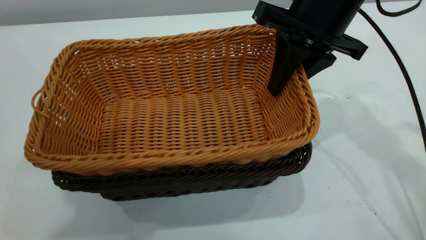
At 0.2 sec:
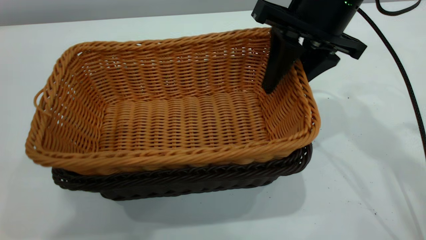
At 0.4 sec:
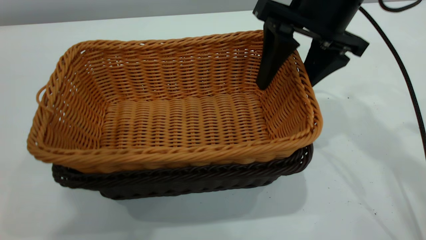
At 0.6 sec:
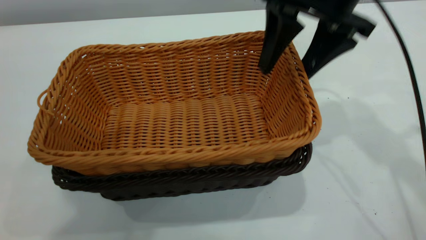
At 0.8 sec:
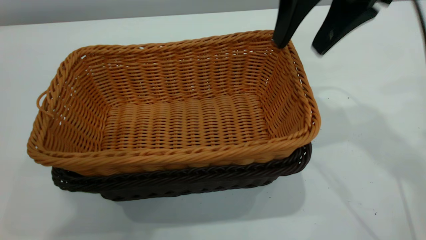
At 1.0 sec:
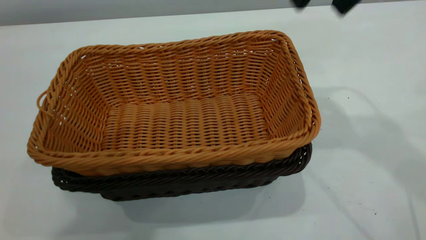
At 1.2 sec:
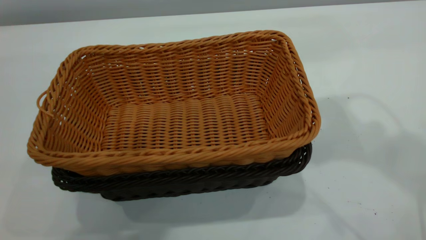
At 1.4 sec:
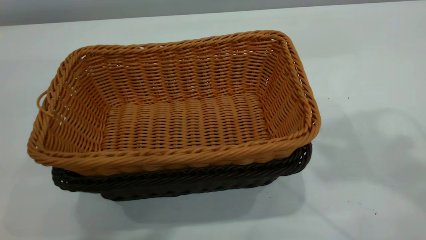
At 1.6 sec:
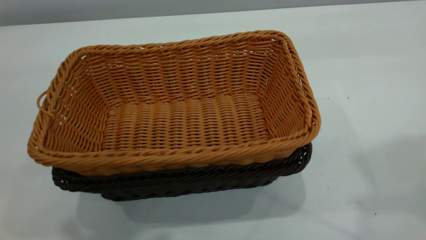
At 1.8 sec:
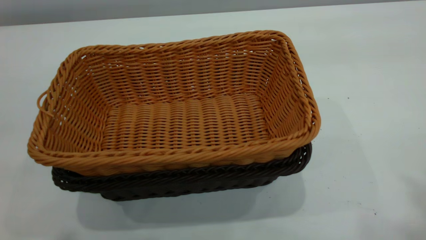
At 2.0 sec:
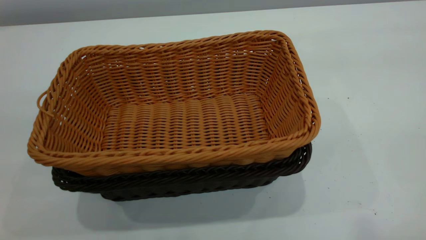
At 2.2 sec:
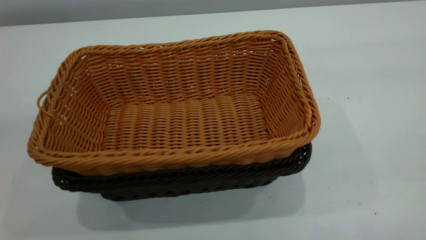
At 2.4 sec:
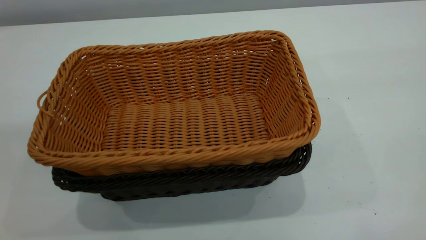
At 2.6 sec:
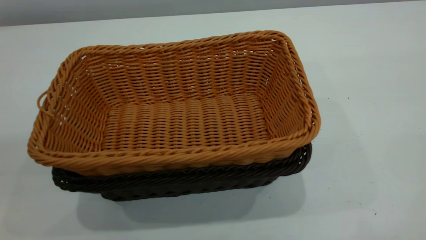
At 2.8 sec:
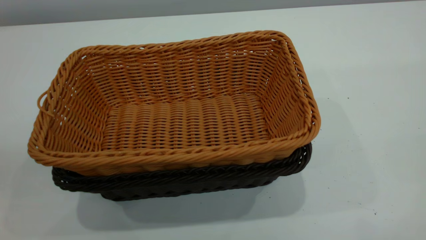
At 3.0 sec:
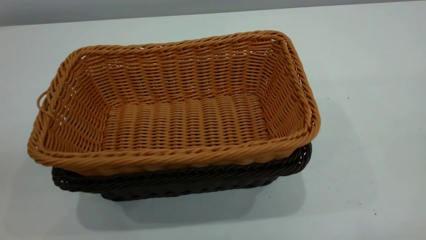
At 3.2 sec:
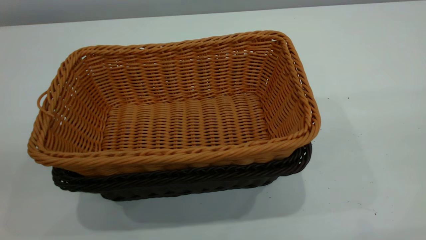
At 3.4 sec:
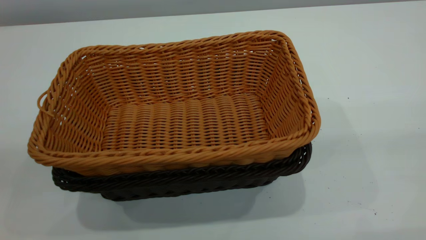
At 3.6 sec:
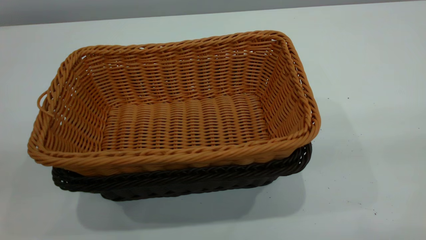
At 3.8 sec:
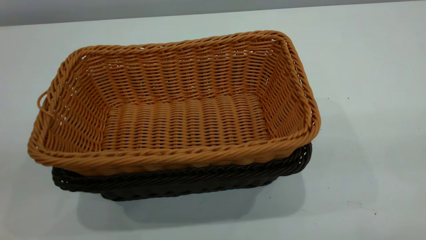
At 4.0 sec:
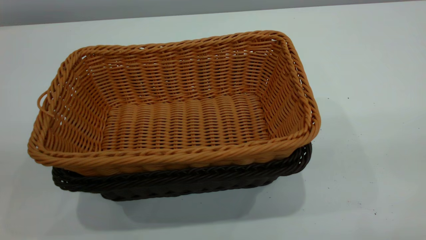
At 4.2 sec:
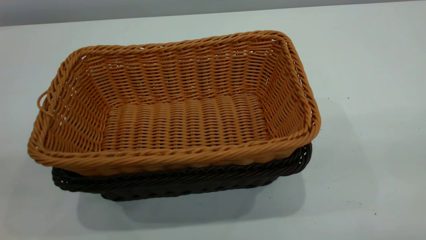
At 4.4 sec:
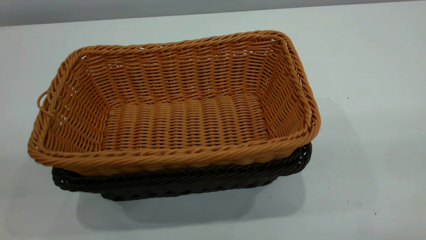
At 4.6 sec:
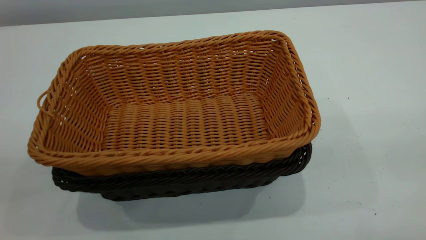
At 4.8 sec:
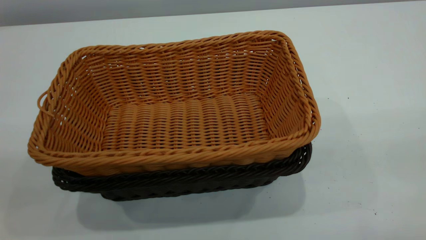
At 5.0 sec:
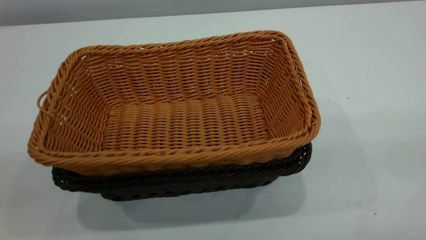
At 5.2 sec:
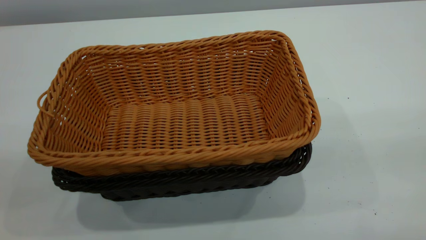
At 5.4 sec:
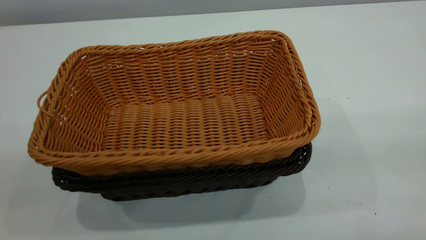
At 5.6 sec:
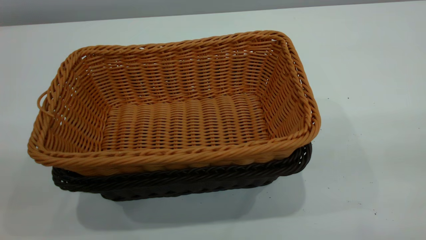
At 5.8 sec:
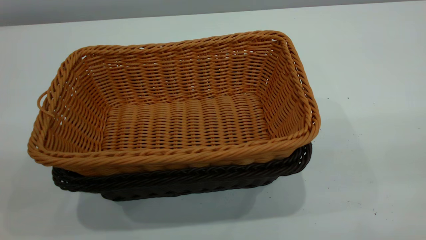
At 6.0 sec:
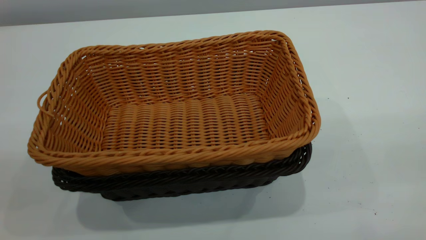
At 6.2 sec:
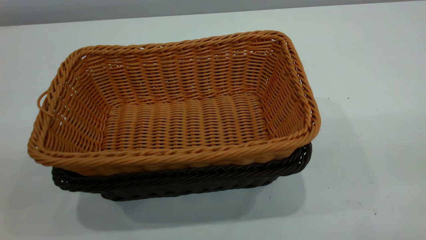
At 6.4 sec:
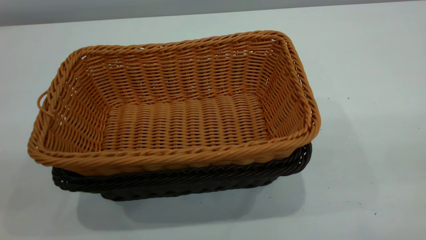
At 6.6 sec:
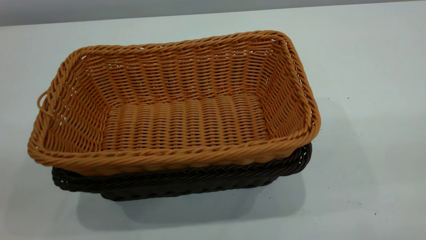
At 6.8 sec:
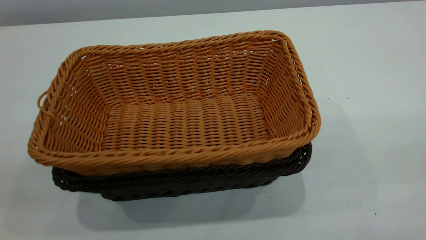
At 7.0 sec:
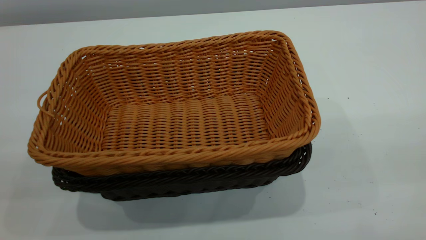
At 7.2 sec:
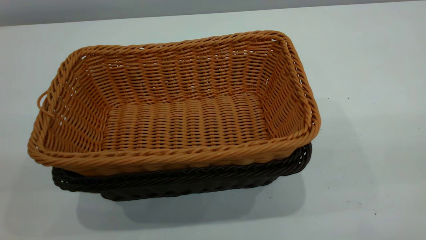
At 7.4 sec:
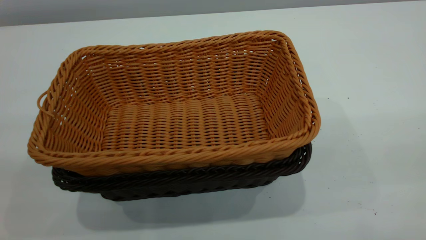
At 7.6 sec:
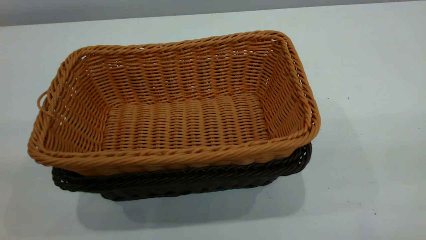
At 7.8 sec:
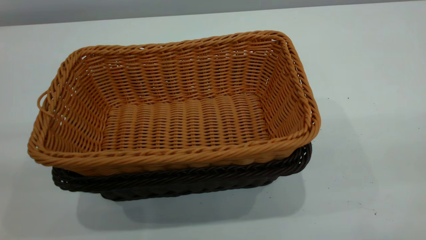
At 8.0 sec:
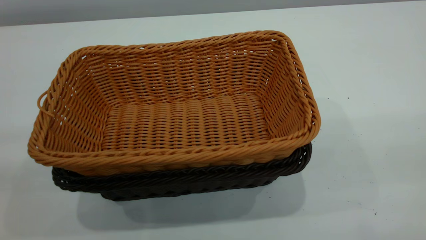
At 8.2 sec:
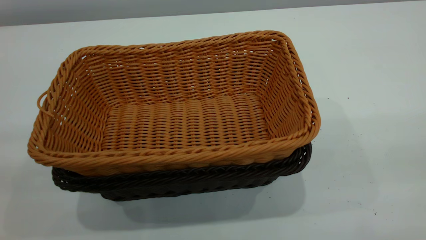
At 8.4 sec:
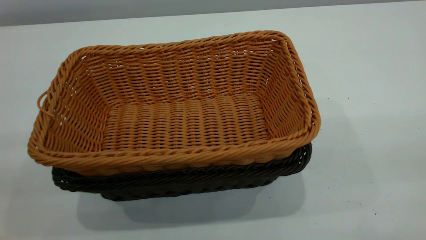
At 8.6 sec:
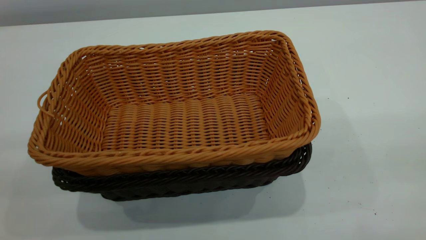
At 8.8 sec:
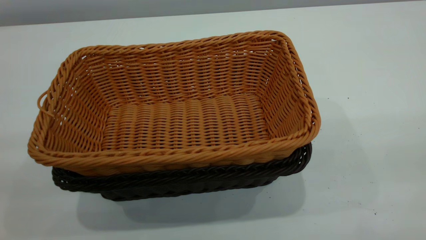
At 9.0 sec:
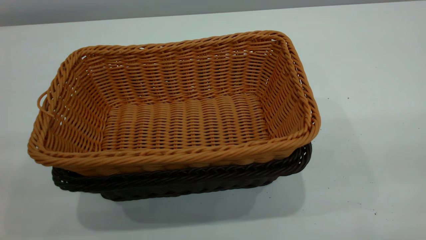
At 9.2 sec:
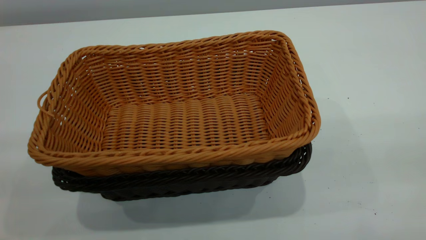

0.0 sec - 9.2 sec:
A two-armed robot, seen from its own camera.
Task of the whole recording: the left gripper grasp the black basket and place it in the center of the table, the right gripper grasp the brown basket and place it inside the black one.
0.0 sec - 1.6 sec: The right gripper shifts about 30 cm upward and backward, and opens. The left gripper closes.
